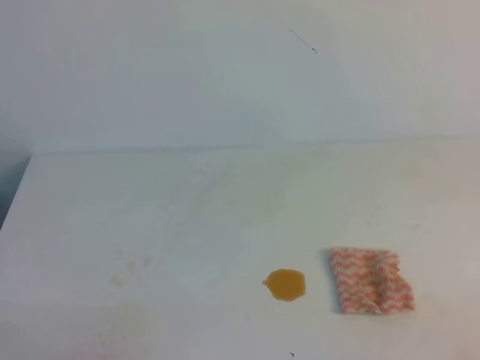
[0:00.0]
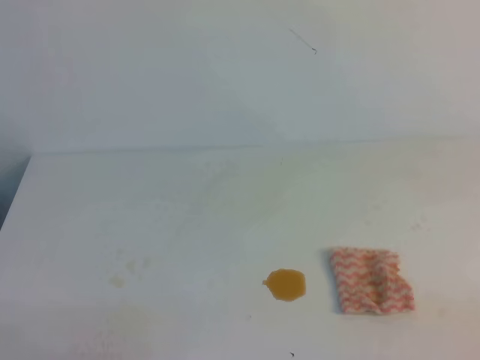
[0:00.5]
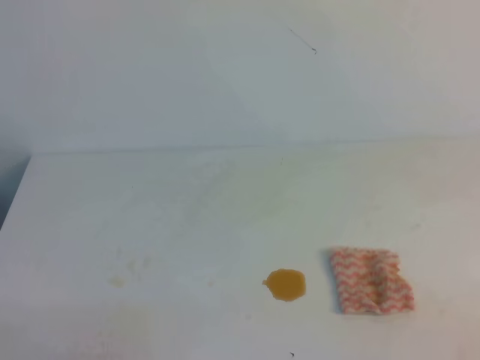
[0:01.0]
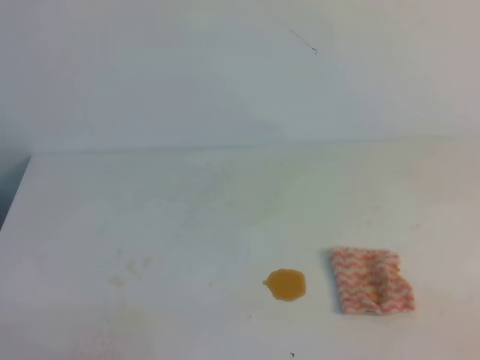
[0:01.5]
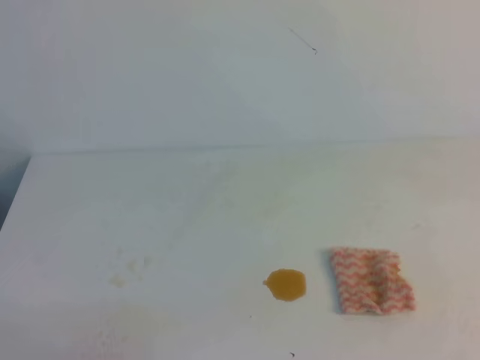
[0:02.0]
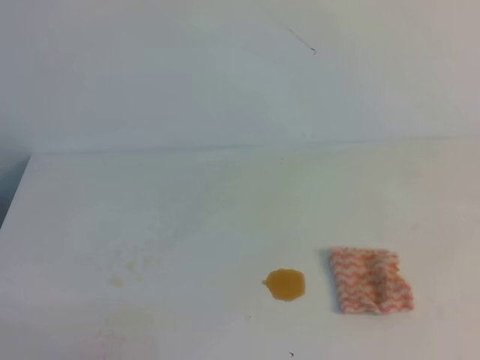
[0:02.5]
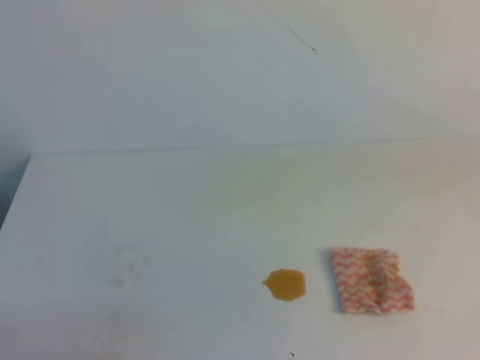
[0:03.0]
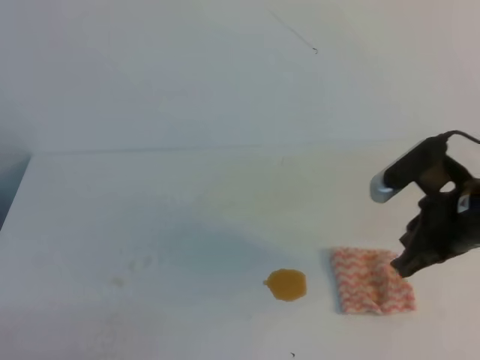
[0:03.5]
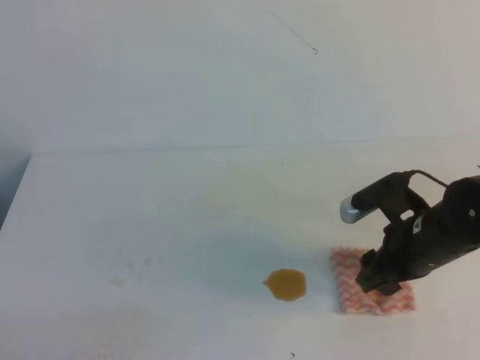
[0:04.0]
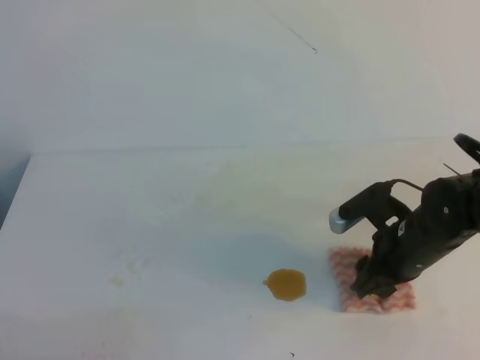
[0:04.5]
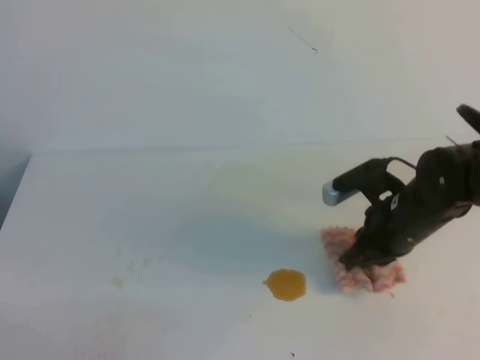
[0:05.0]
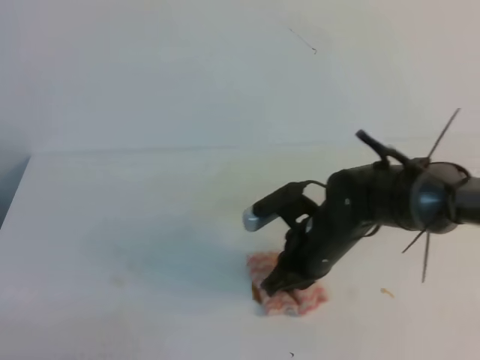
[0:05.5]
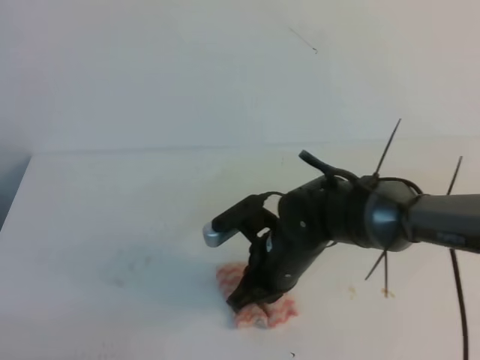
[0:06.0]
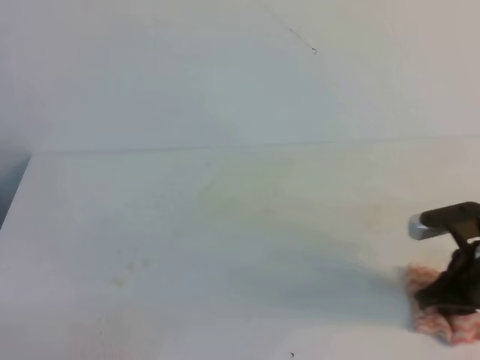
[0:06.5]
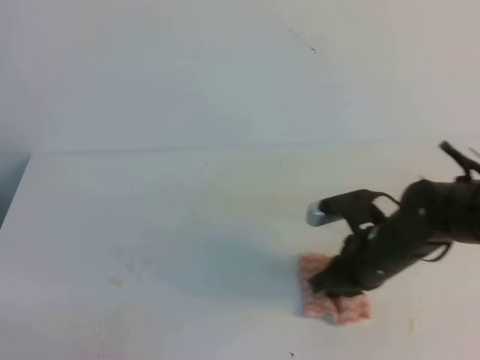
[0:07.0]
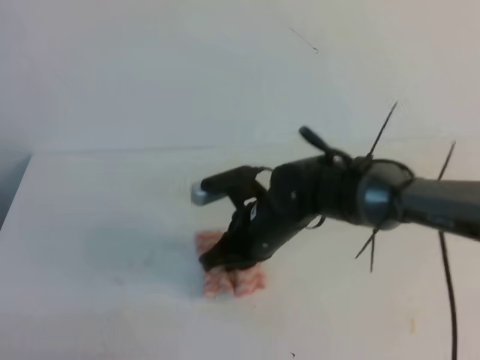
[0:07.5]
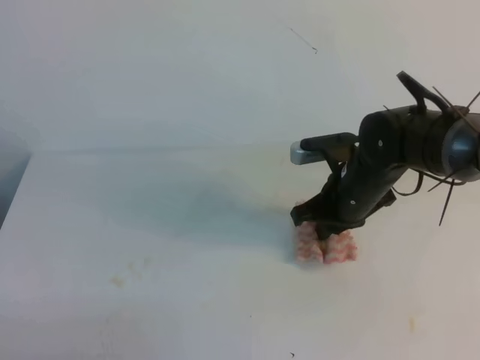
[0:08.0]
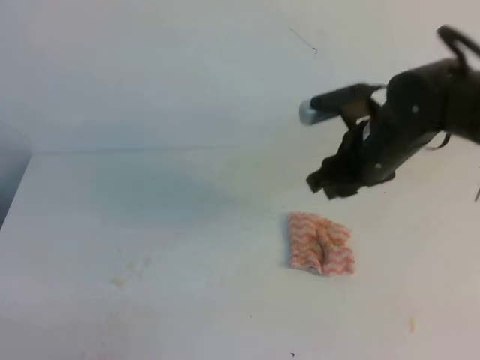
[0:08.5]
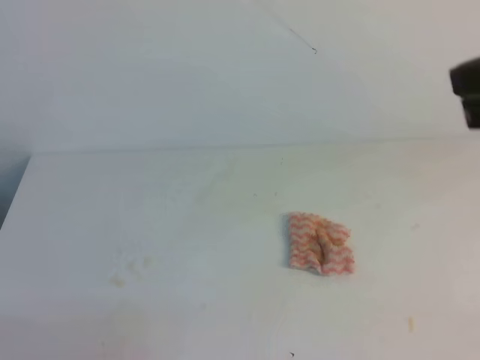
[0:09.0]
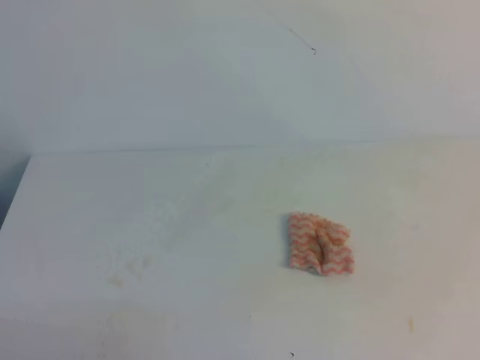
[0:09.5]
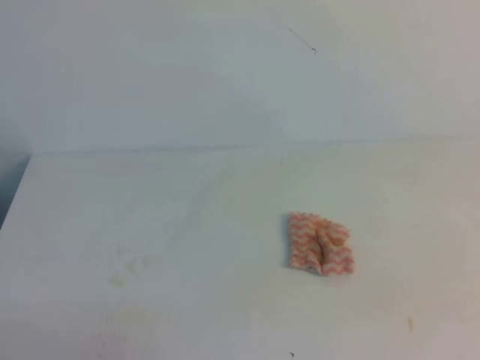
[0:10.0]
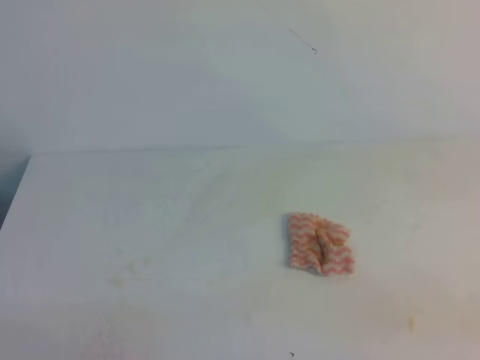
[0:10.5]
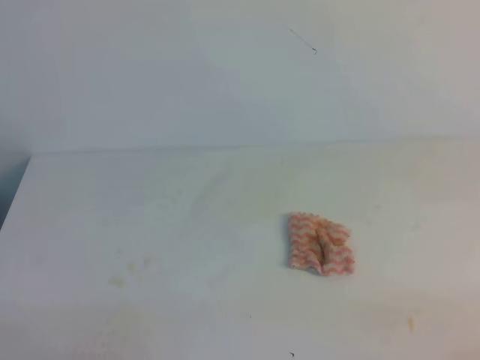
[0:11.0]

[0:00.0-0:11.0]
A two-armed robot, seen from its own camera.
0:02.0 to 0:03.5: The right gripper shifts roughly 25 cm forward.
0:03.5 to 0:05.5: The right gripper goes roughly 15 cm to the left and downward, and opens, then closes again.
0:05.5 to 0:07.5: The right gripper travels to the right and back again, approximately 15 cm each way.
0:07.5 to 0:09.0: The right gripper moves upward, to the right and backward, roughly 35 cm, and opens and closes again.
0:09.0 to 0:11.0: The right gripper moves downward, backward and to the right, some 30 cm.
